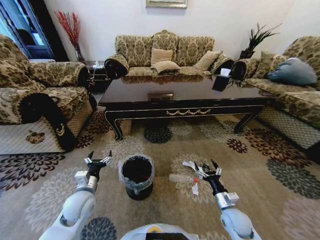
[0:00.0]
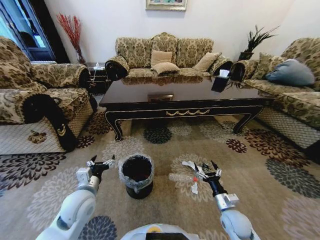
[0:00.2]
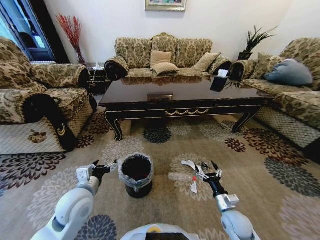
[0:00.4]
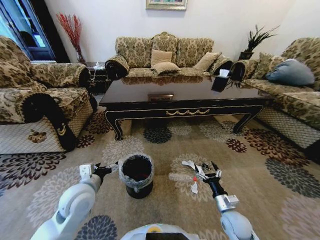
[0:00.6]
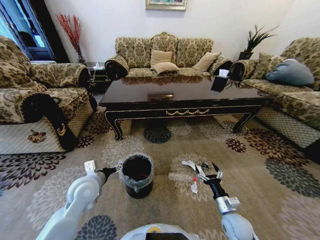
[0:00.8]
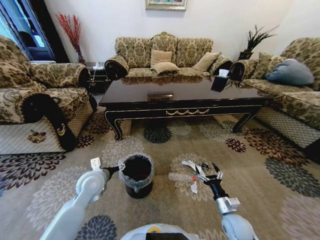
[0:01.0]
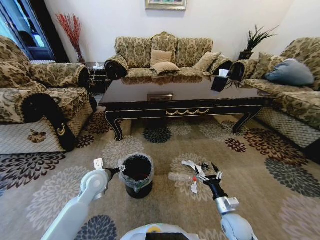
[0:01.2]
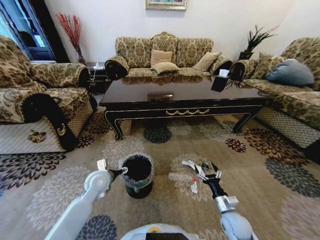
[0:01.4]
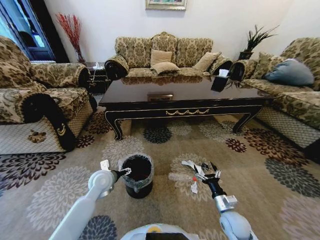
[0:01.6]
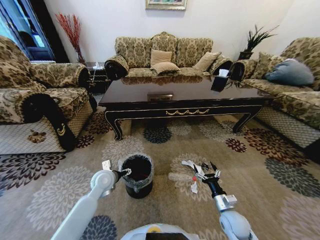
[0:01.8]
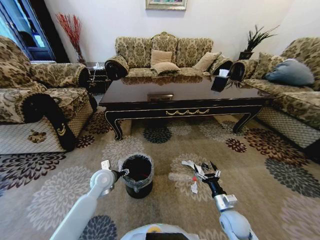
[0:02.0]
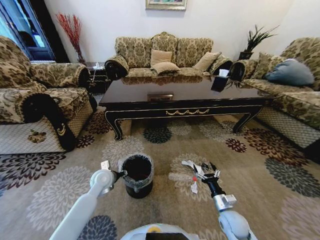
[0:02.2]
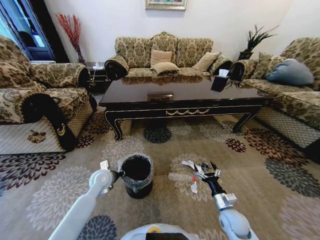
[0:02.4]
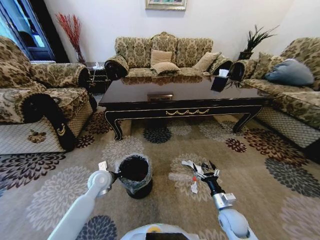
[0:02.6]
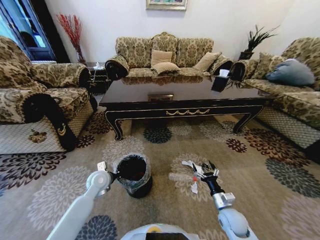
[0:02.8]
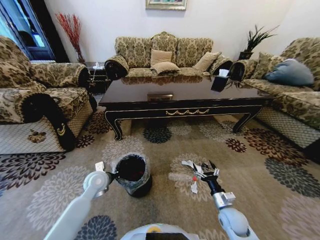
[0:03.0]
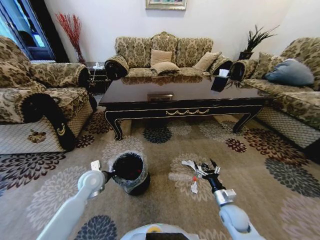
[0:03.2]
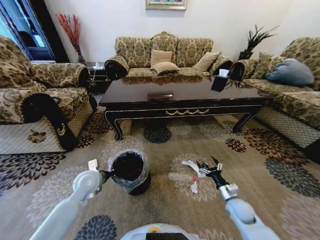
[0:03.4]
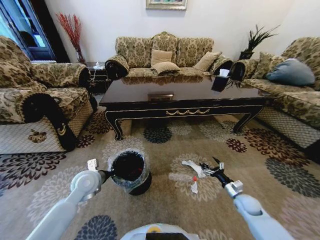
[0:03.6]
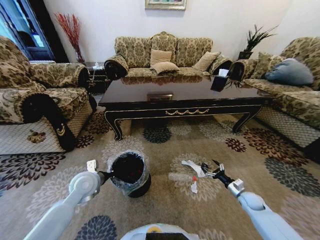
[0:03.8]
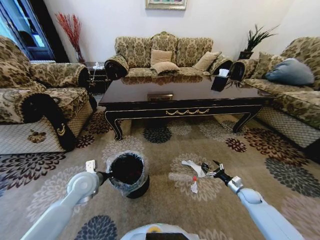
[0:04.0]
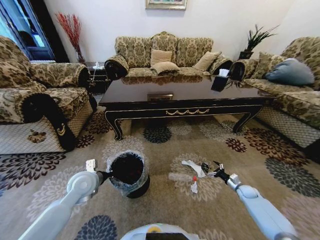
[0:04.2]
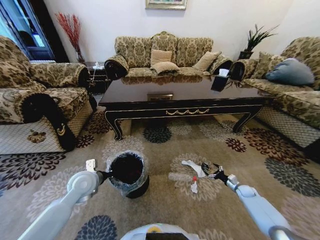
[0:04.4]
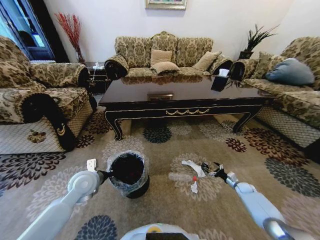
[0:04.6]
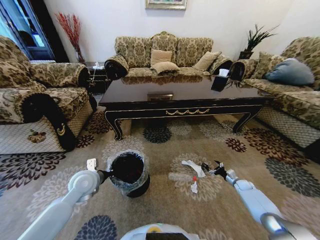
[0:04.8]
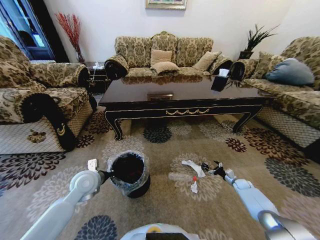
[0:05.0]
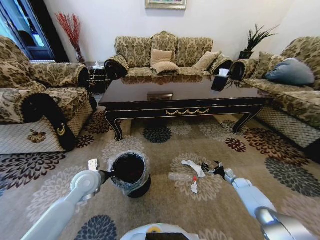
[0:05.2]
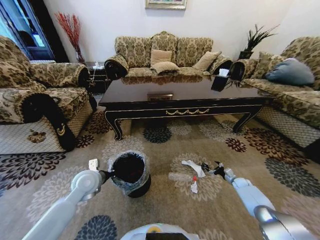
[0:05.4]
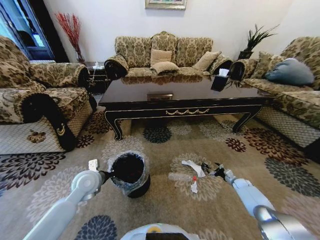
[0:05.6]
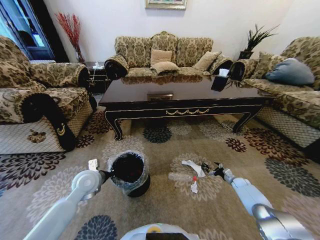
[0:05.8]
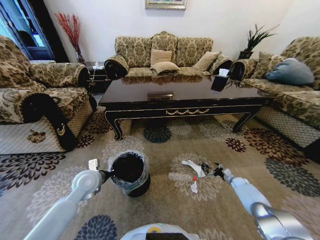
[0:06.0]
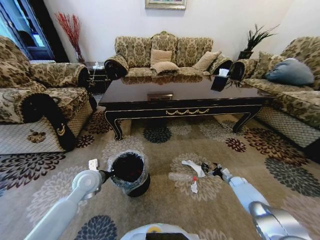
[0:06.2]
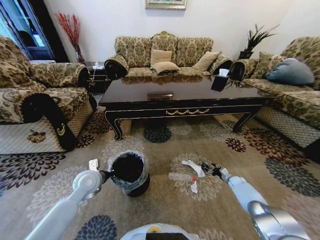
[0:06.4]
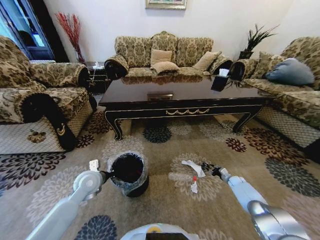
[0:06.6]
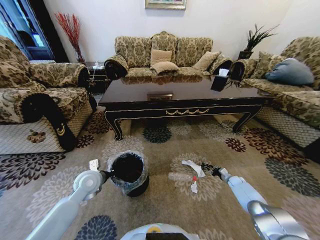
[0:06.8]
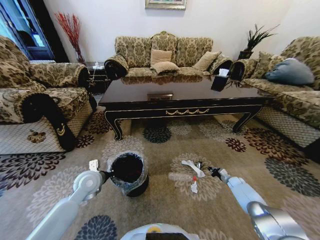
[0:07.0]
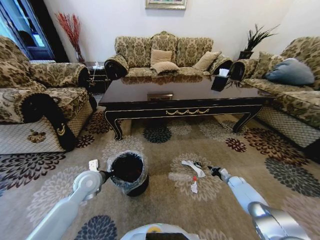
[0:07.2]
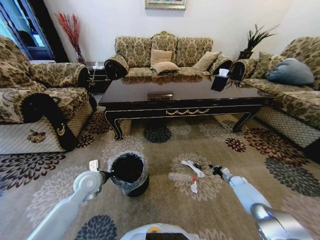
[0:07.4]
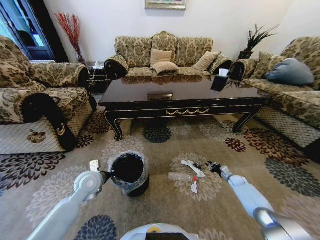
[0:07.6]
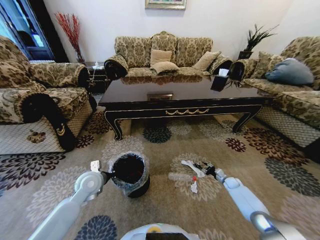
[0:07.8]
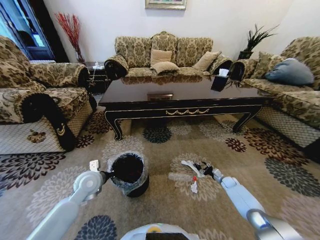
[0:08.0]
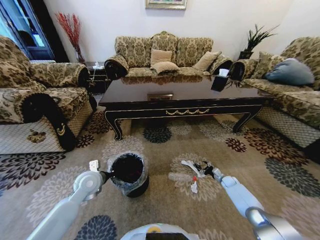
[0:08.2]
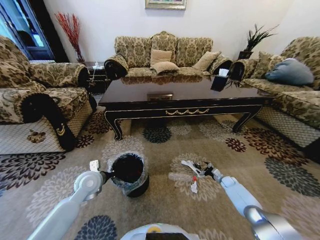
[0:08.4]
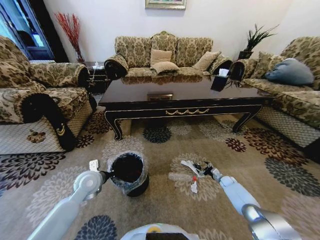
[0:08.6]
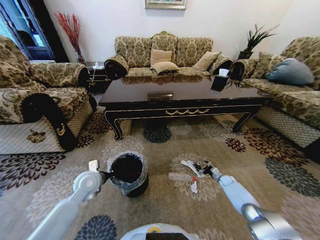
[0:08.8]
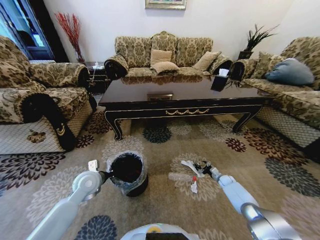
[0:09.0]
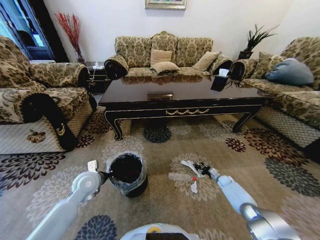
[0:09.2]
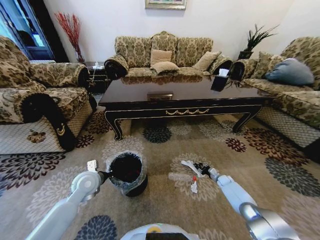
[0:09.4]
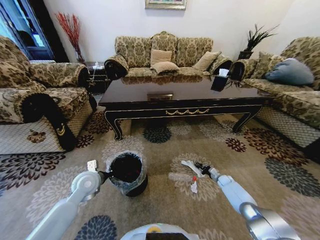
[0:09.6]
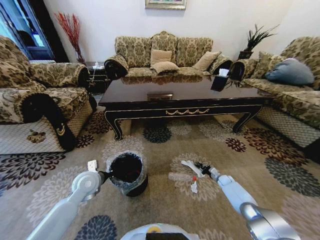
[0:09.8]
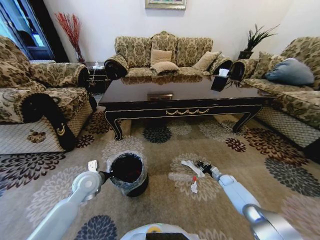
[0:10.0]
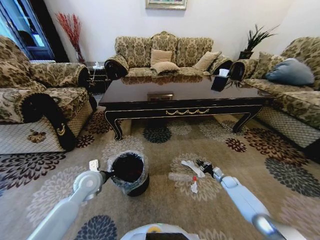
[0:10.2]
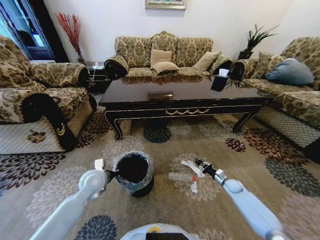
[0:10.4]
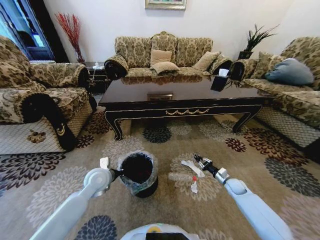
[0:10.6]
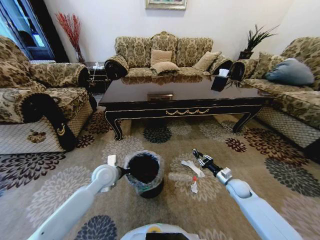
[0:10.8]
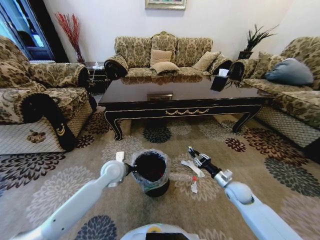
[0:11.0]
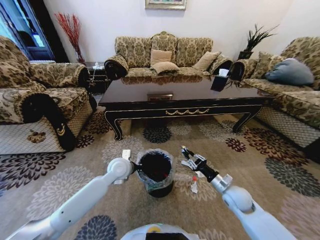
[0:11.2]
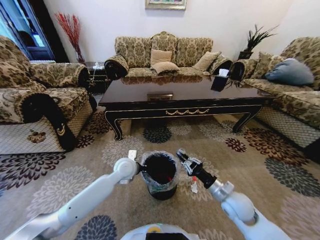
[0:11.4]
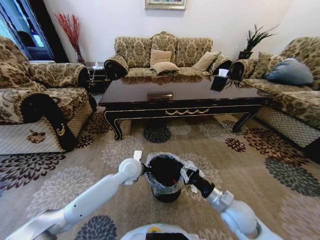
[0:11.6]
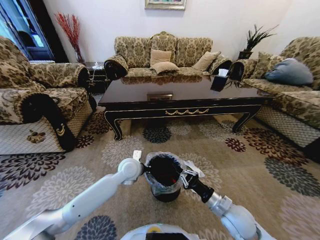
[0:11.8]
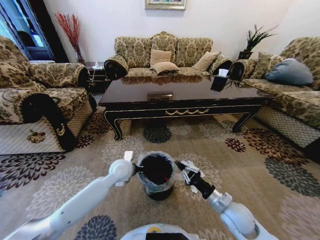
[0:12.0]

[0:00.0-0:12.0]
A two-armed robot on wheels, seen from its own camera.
Task of the whole recording: Move to the front of the table and pick up the trash from the floor, then place it into the trash bin.
0:00.0 to 0:01.6: The left gripper is displaced forward by about 10 cm.
0:01.6 to 0:03.0: The left gripper closes up.
0:03.0 to 0:04.4: The left gripper goes some 5 cm upward, while the right gripper travels to the right, forward and downward by approximately 30 cm.
0:04.4 to 0:06.0: The right gripper goes roughly 5 cm forward.
0:06.0 to 0:07.6: The right gripper closes.
0:07.6 to 0:09.0: The right gripper ends up about 5 cm from where it was, and opens its fingers.
0:09.0 to 0:10.4: The right gripper changes place by approximately 5 cm, and closes.
0:10.4 to 0:12.0: The right gripper is displaced to the left, upward and backward by roughly 30 cm, while the left gripper shifts roughly 10 cm to the right.

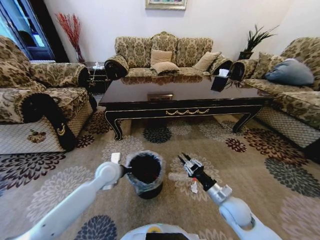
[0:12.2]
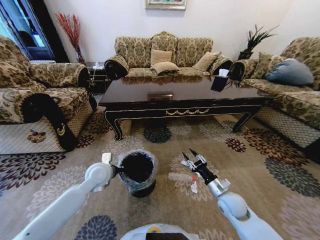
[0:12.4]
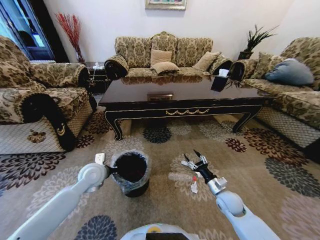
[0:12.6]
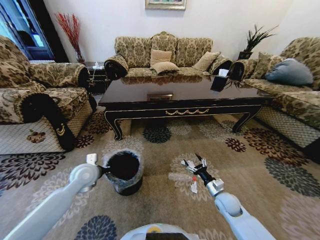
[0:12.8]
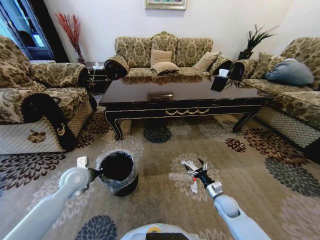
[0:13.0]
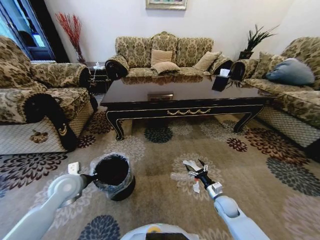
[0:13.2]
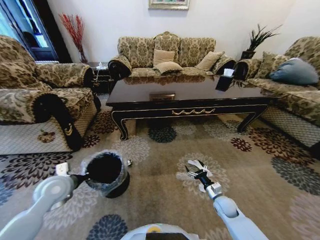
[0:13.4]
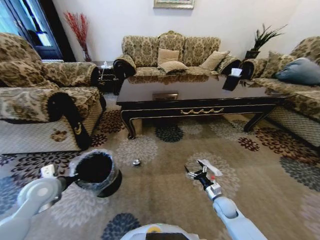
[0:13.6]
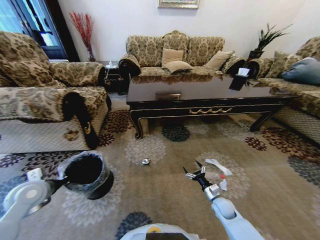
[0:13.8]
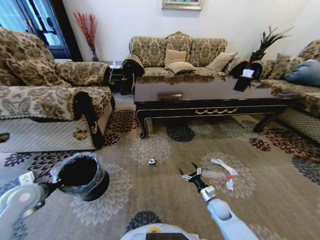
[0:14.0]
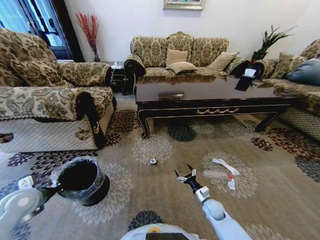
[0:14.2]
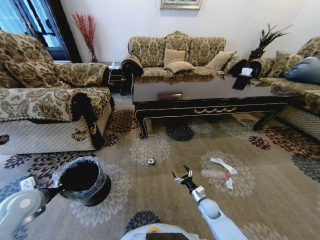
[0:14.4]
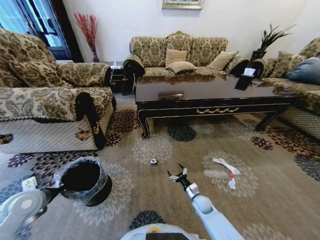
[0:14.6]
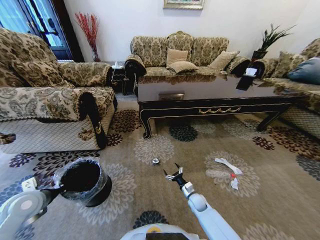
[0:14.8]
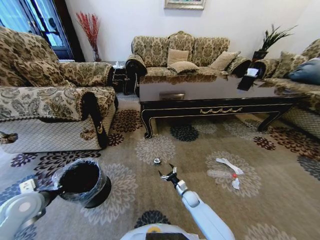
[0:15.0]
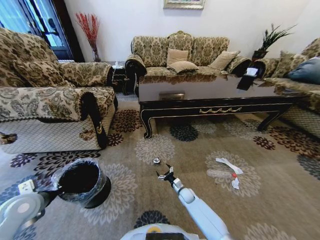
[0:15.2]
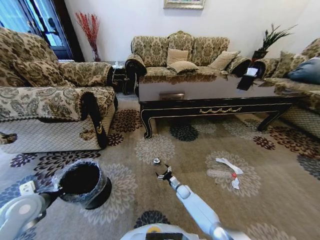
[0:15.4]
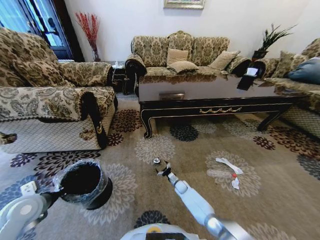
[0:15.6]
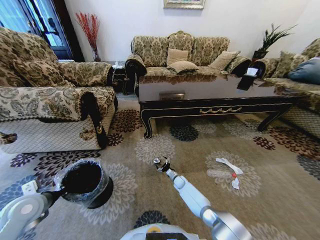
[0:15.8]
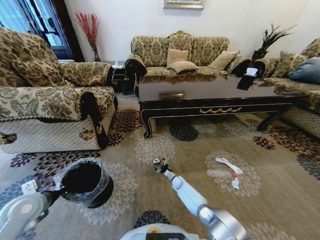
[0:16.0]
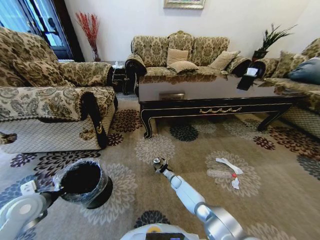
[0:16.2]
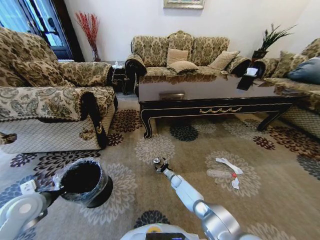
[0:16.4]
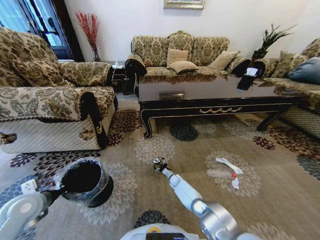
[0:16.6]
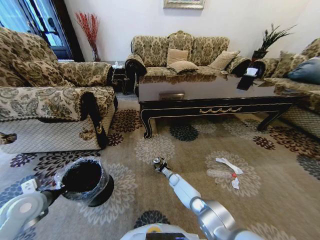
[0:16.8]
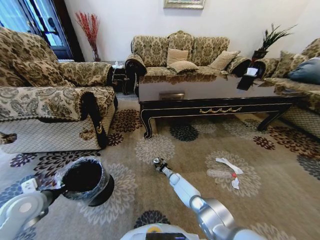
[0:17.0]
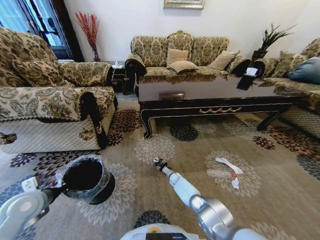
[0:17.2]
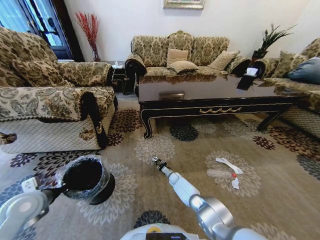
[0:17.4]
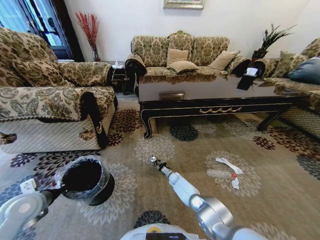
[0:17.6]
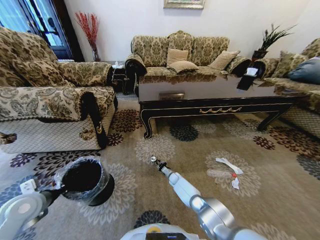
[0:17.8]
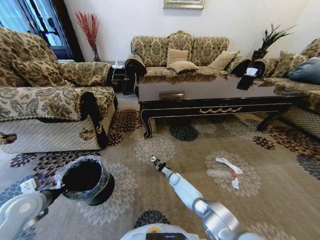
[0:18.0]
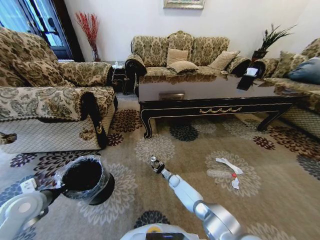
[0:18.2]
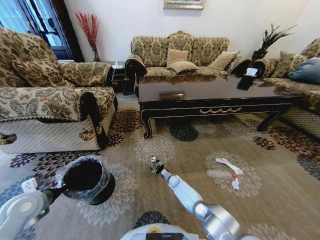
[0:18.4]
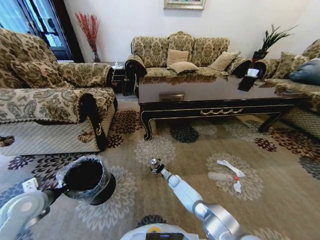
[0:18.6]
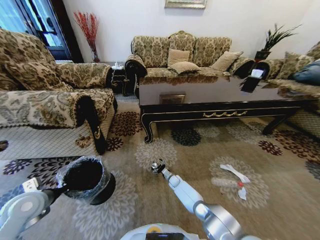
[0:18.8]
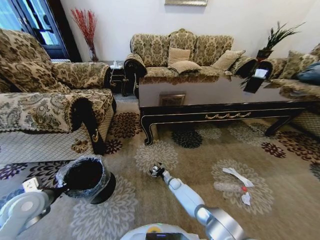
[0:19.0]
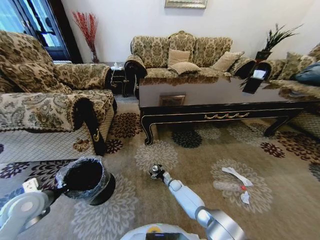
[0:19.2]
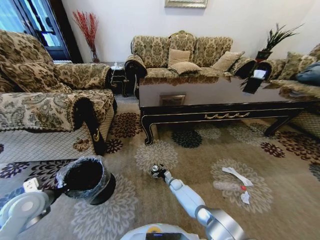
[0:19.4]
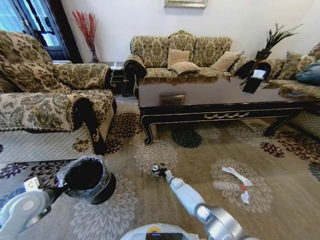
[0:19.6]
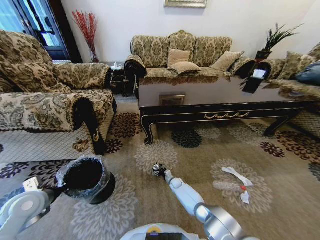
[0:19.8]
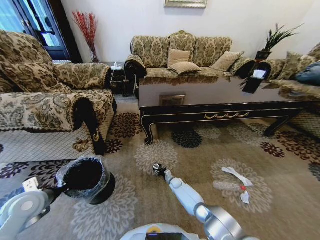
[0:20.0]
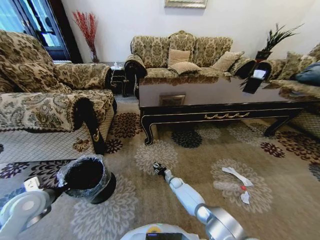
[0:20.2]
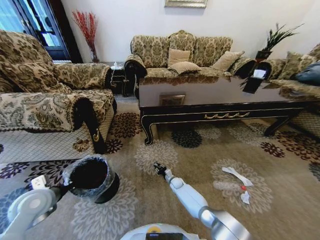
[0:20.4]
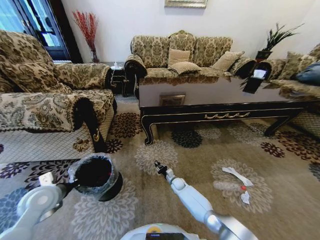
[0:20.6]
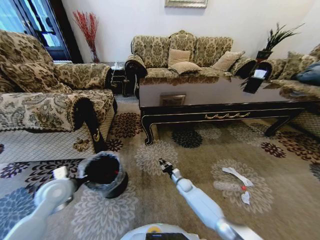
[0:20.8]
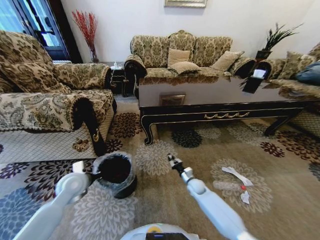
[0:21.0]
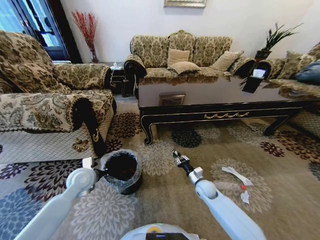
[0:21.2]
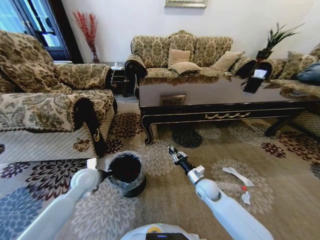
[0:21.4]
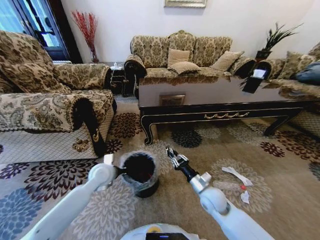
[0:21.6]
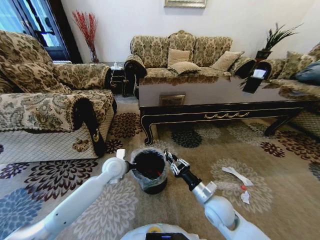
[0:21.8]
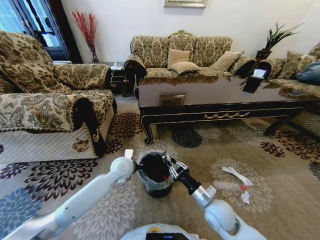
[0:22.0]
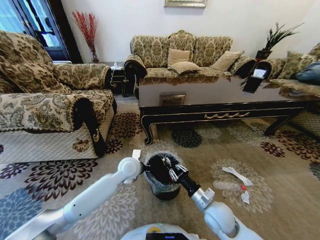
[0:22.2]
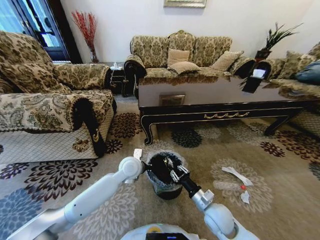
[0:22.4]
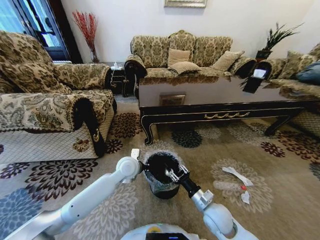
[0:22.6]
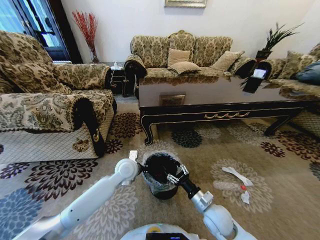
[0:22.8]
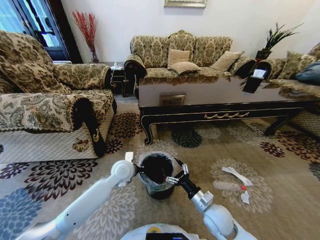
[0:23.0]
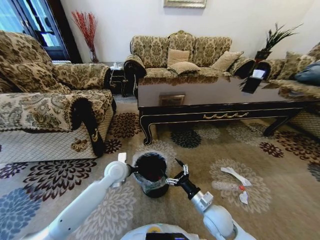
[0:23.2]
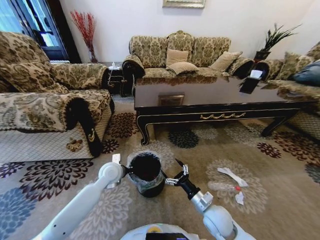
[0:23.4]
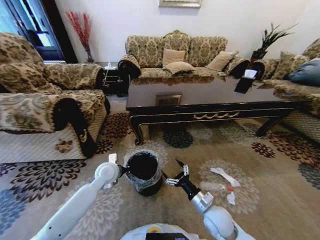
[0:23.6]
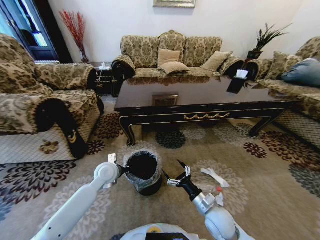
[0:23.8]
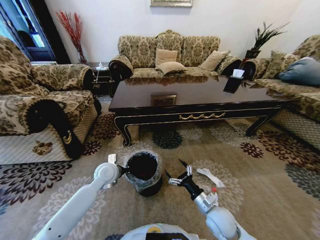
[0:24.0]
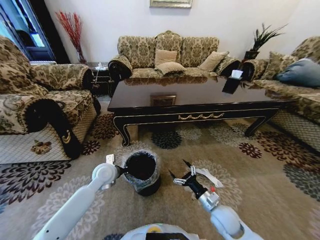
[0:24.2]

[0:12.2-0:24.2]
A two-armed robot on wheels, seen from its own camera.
Task of the whole recording: Move to the front of the table and pick up the trash from the floor, then place it into the trash bin.
0:12.2 to 0:13.8: The left gripper is displaced to the left by roughly 25 cm. Meanwhile the right gripper moves downward, about 15 cm, and opens up.
0:13.8 to 0:15.2: The right gripper travels to the left, downward and forward by roughly 20 cm.
0:15.2 to 0:16.6: The right gripper is displaced forward by roughly 10 cm.
0:16.6 to 0:18.2: The right gripper closes up.
0:19.8 to 0:21.2: The left gripper heads to the right and forward, covering roughly 15 cm. The right gripper travels upward, to the right and backward by some 25 cm, and closes.
0:21.2 to 0:22.6: The right gripper is displaced backward and upward by some 15 cm; the left gripper shifts about 20 cm to the right.
0:22.6 to 0:24.2: The left gripper goes roughly 10 cm to the left. The right gripper opens up.
